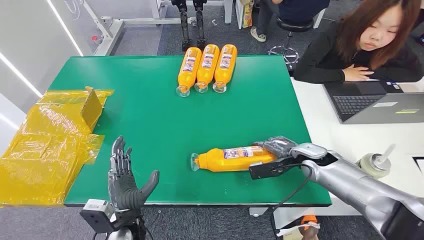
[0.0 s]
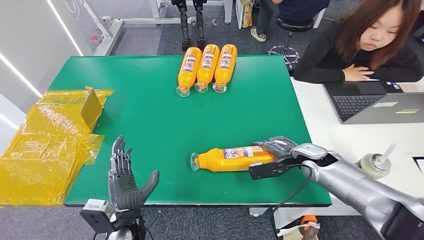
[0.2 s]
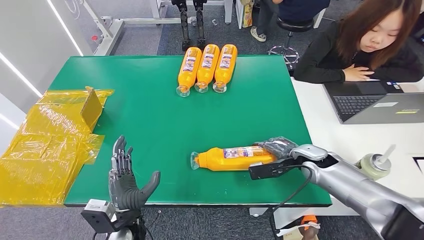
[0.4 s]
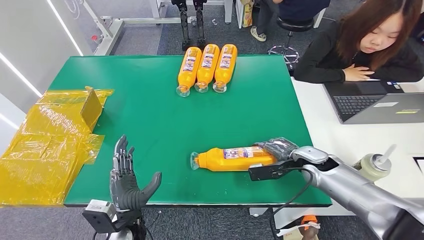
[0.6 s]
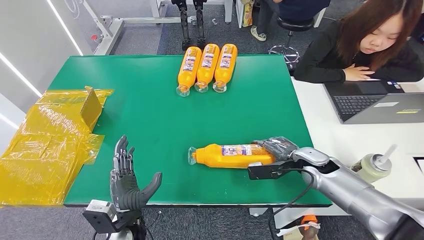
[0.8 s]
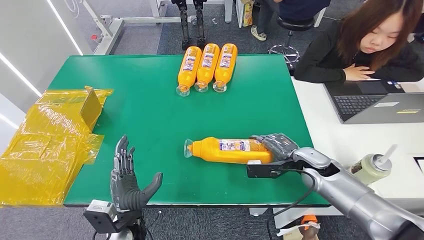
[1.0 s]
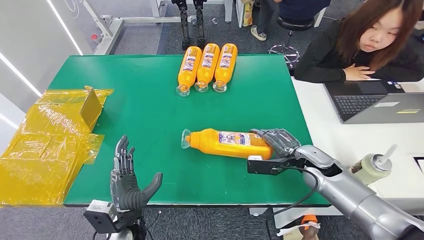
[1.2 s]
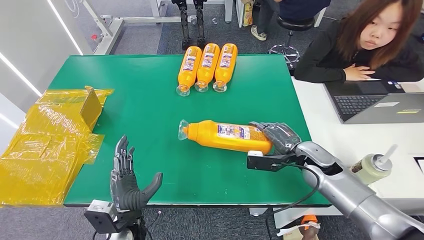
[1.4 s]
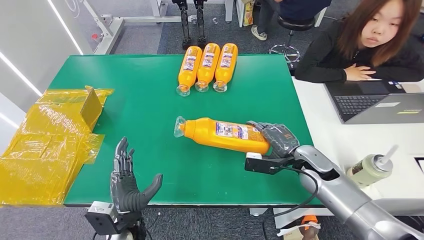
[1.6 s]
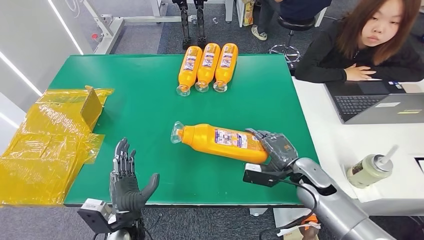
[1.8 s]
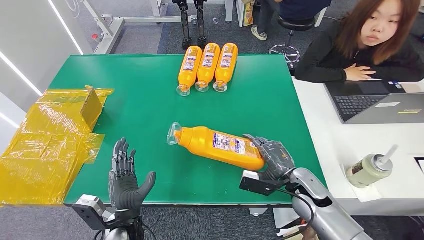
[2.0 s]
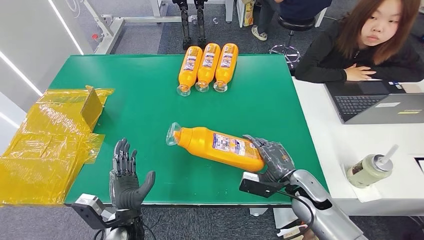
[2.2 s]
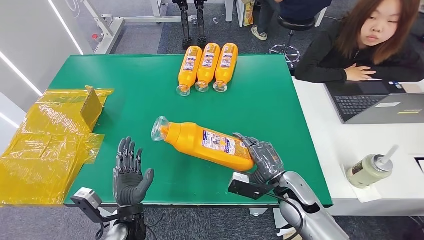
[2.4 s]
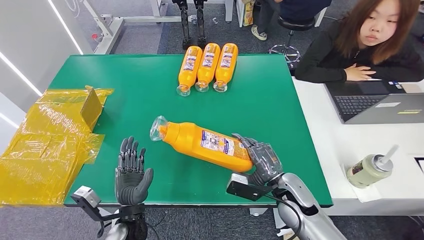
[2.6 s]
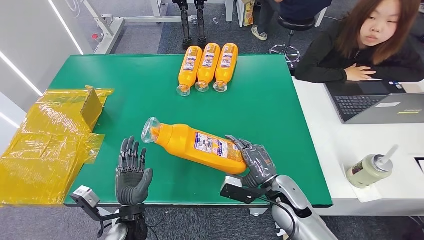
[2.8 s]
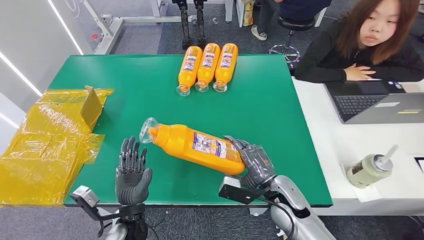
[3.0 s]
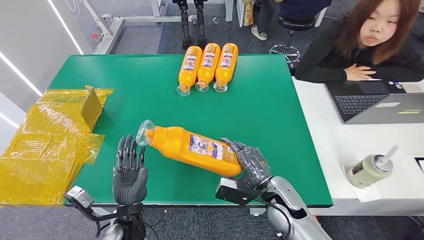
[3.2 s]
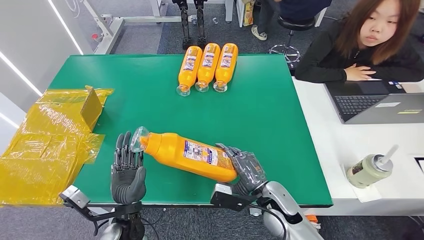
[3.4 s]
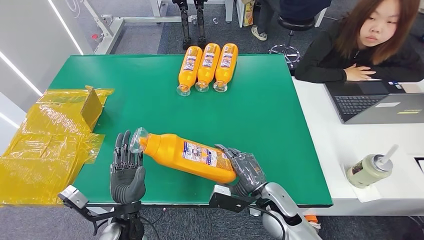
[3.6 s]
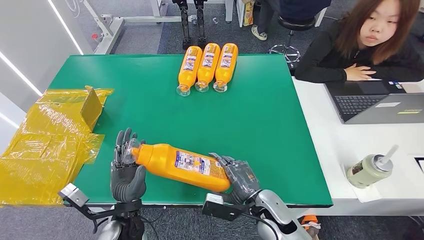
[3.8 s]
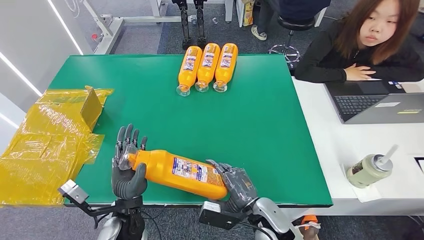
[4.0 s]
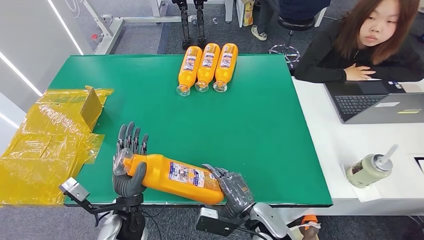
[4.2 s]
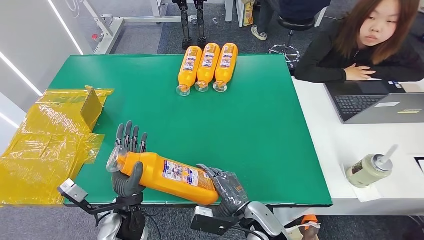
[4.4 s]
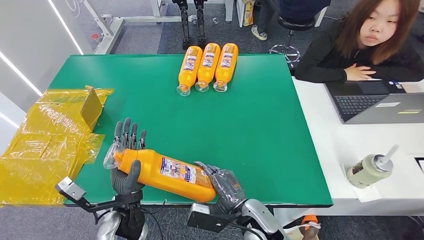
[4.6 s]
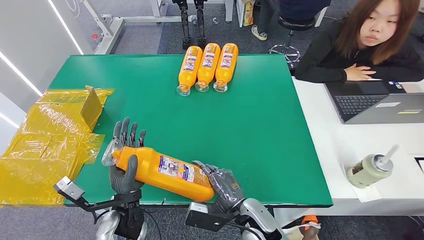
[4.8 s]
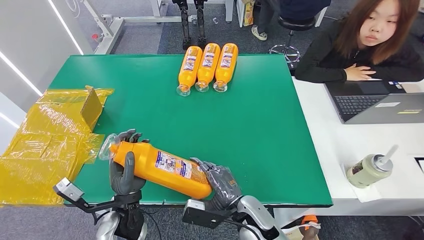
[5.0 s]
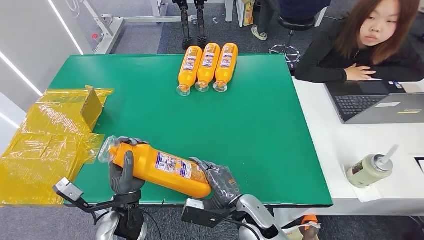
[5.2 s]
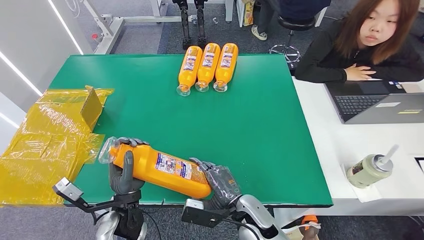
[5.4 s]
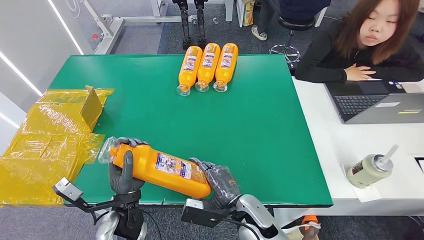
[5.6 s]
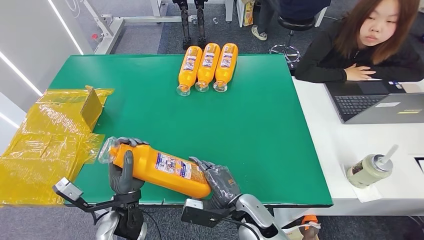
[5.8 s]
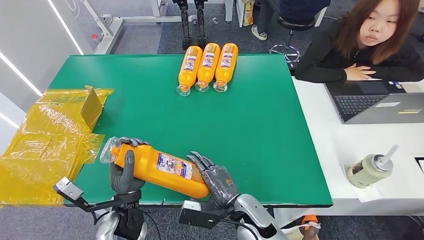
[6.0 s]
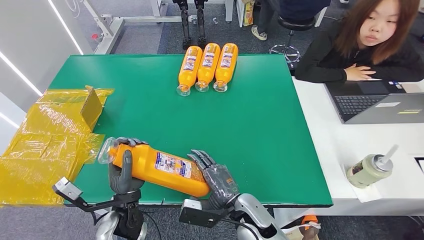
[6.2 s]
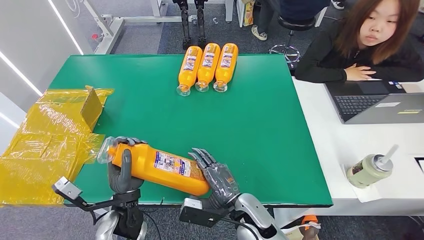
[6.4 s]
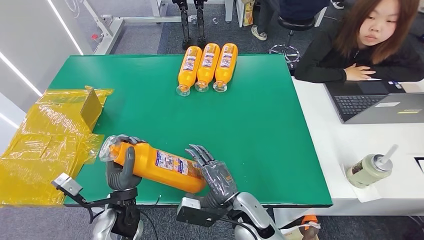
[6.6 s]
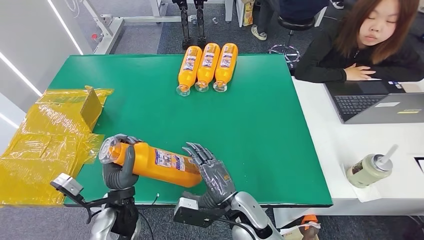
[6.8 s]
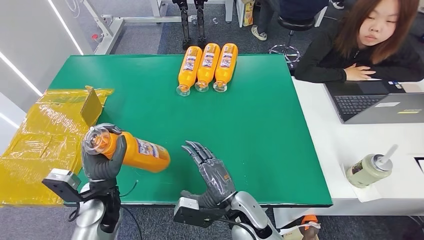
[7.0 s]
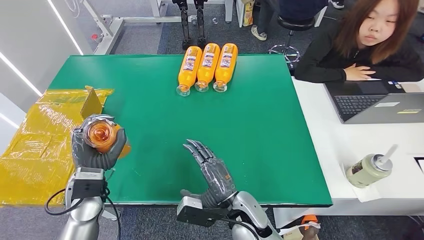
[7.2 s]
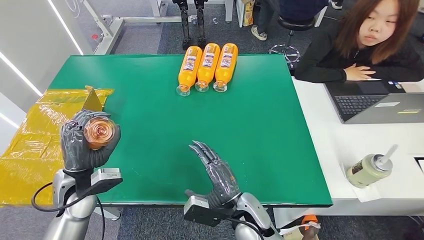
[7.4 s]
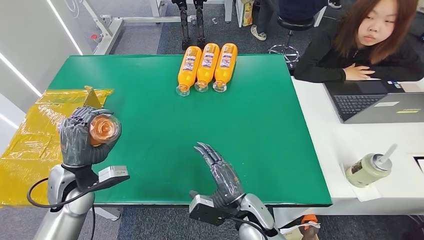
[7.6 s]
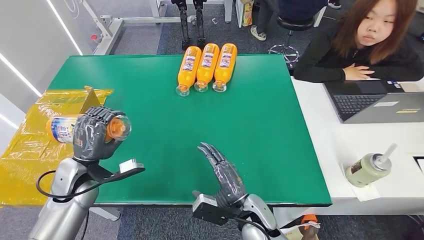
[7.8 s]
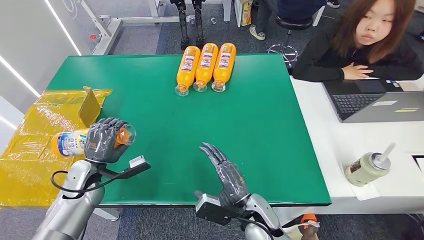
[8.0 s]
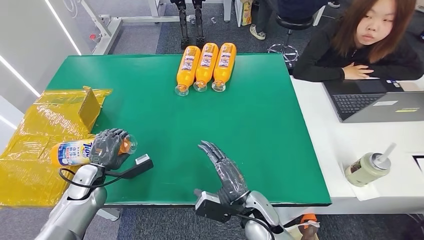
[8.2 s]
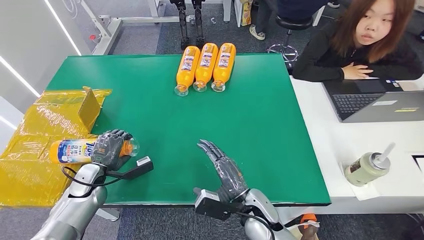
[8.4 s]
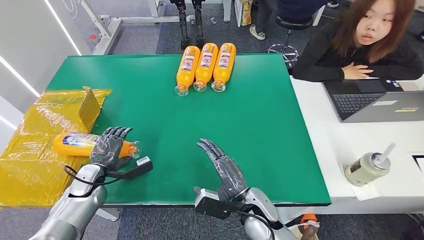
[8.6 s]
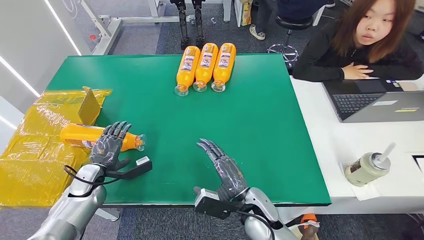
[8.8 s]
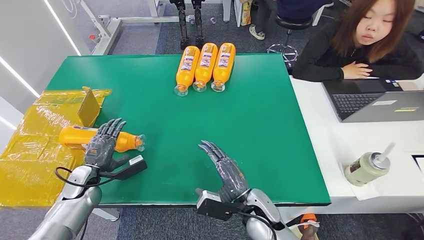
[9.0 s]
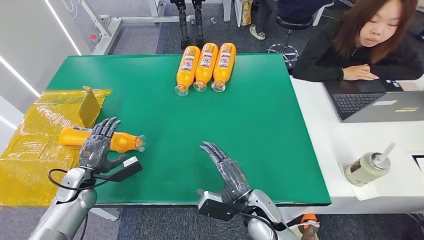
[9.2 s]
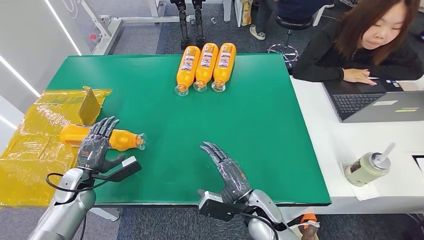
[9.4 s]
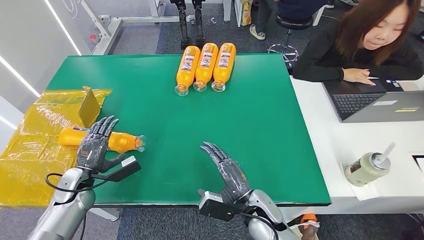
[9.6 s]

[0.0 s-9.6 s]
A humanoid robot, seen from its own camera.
Step, 0.0 to 3.0 s: Pick up the bottle from the table.
Step, 3.2 to 9.6 s: Turn the bottle to the front side.
1.6 to 3.2 s: The right hand heads to the left and backward, covering some 15 cm.
3.2 to 4.8 s: The right hand shifts roughly 10 cm to the left and backward.
4.8 to 6.4 s: The hands make only small movements.
8.0 to 9.6 s: The left hand shifts by approximately 5 cm.
